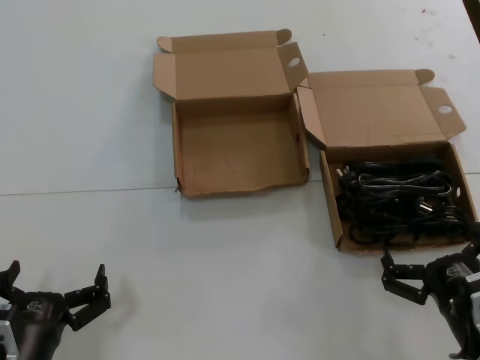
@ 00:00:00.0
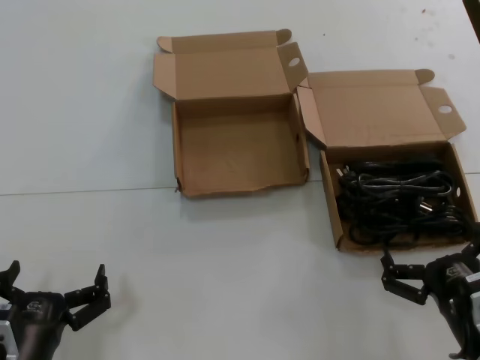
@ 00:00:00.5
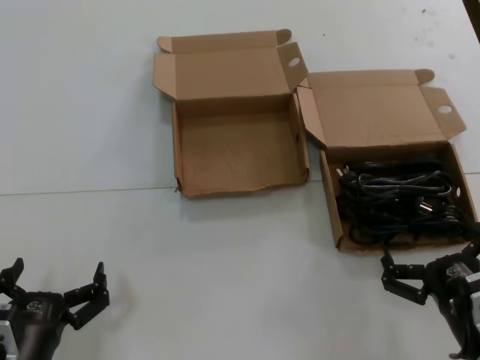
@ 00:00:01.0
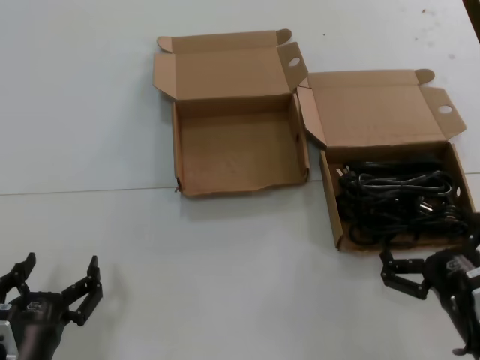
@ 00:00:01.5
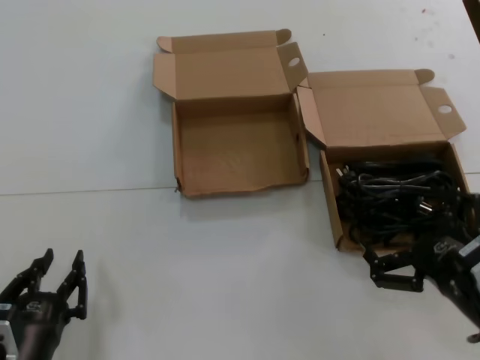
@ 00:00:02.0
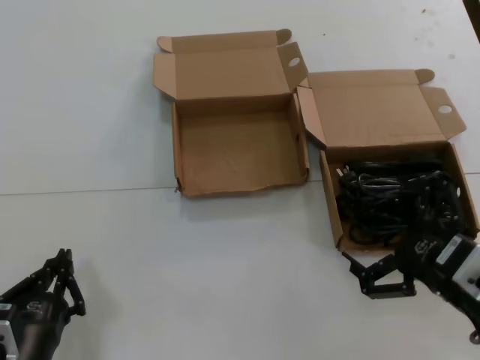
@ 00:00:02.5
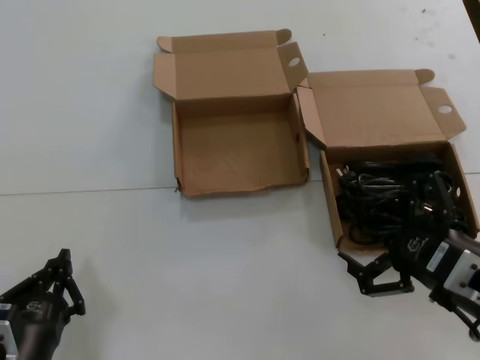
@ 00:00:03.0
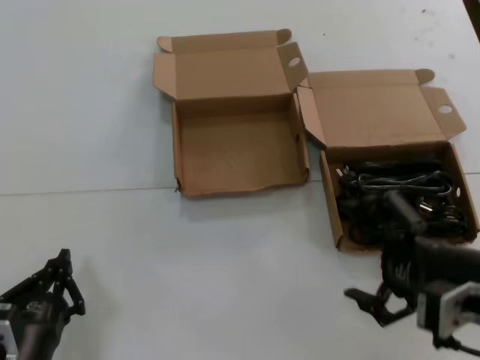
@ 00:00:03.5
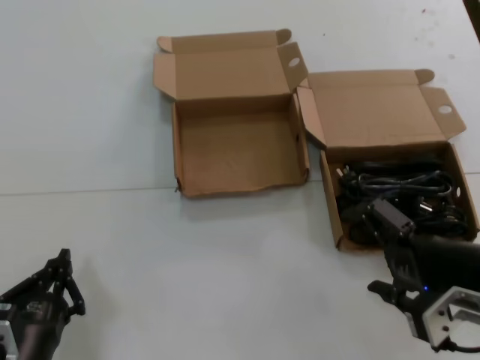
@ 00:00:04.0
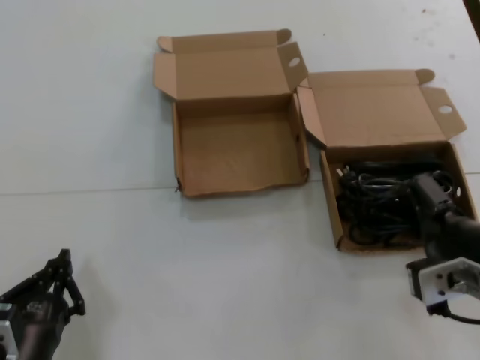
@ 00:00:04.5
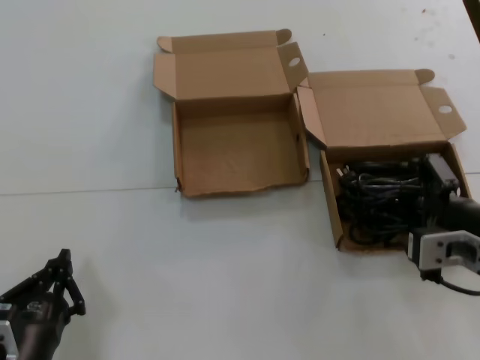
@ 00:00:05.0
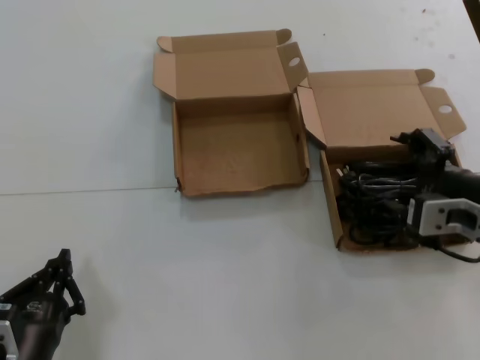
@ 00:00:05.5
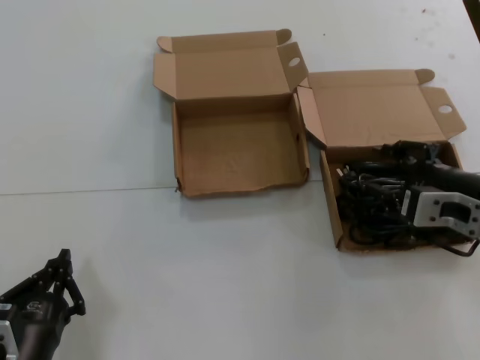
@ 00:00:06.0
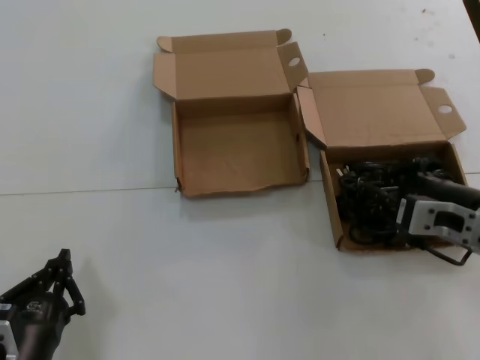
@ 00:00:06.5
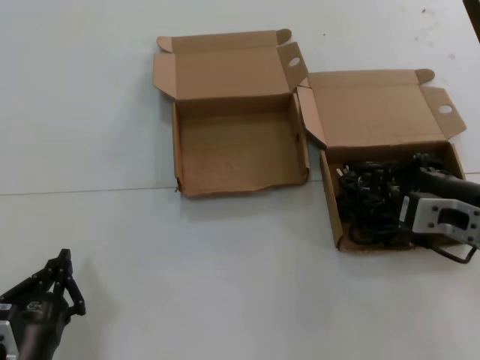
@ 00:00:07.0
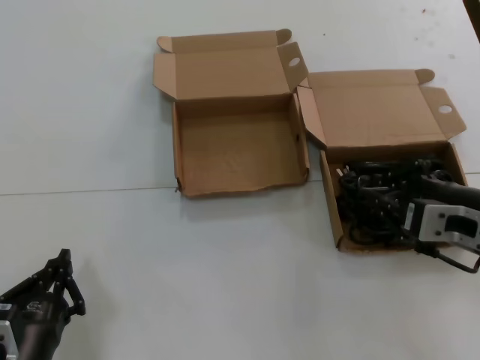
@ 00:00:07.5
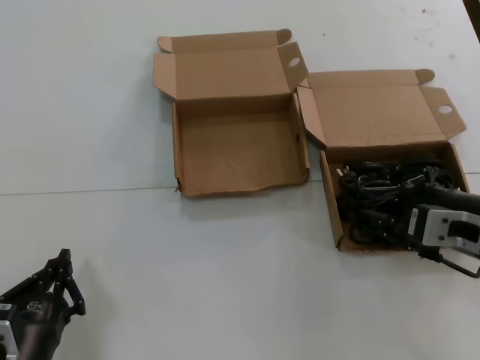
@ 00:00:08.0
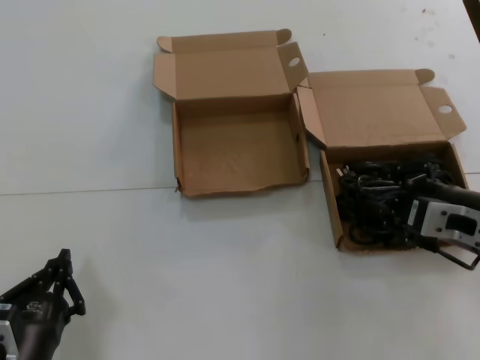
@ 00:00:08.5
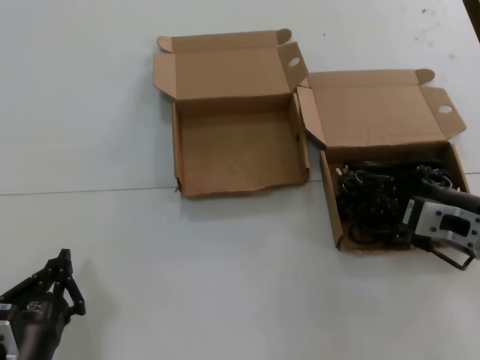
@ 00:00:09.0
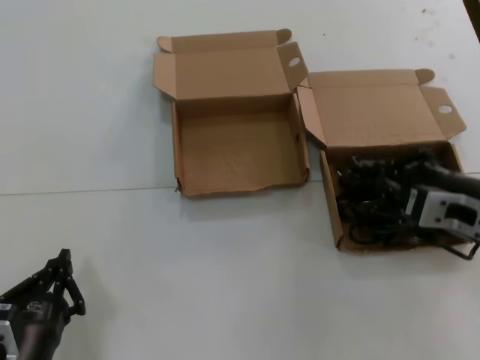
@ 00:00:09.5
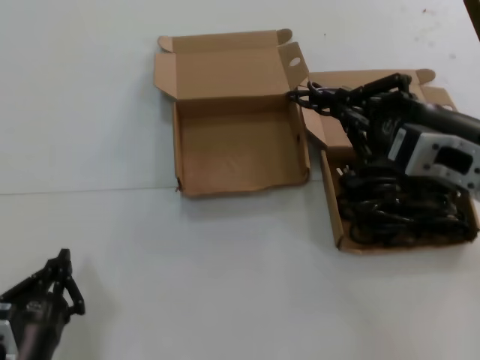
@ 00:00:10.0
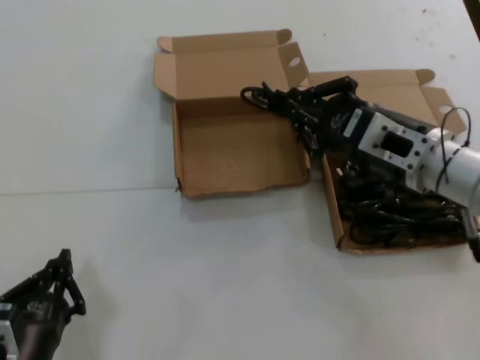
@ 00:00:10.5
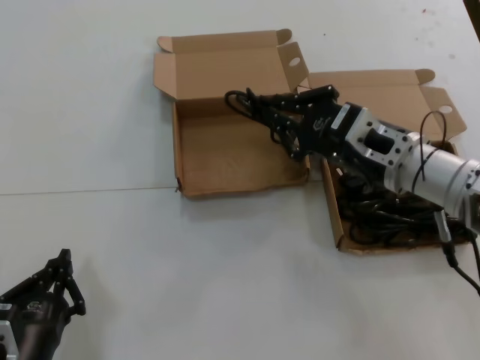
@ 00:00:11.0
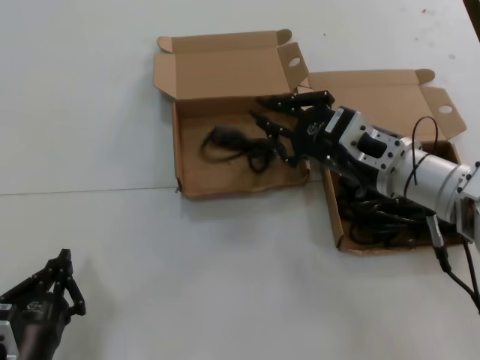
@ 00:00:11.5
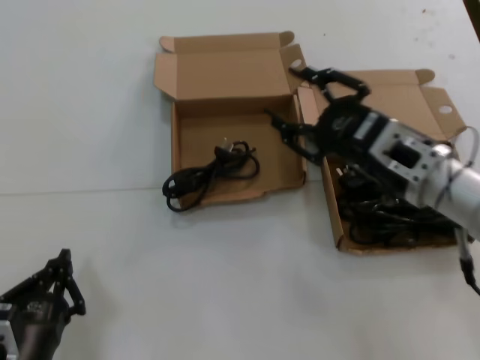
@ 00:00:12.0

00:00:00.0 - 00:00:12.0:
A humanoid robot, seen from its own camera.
Task of the whole recording: take the parts from the box containing them and put them into an empty box.
Step, 00:00:00.0 - 00:00:08.5: Grasp the data cable.
Step, 00:00:09.5 - 00:00:11.5: Place the data cable in the another box.
00:00:00.0 - 00:00:02.0: The right hand goes about 10 cm upward.
00:00:02.0 - 00:00:04.0: The right hand travels upward by approximately 5 cm.
00:00:04.0 - 00:00:06.0: The right hand goes about 5 cm forward.
00:00:06.0 - 00:00:08.0: The hands move only a little.
00:00:08.0 - 00:00:10.0: The right hand moves upward, roughly 5 cm.
00:00:10.0 - 00:00:12.0: The right hand is displaced forward and downward by about 10 cm.

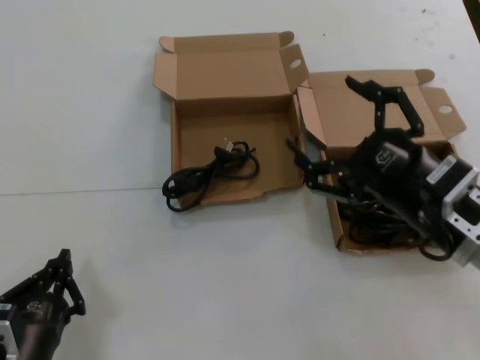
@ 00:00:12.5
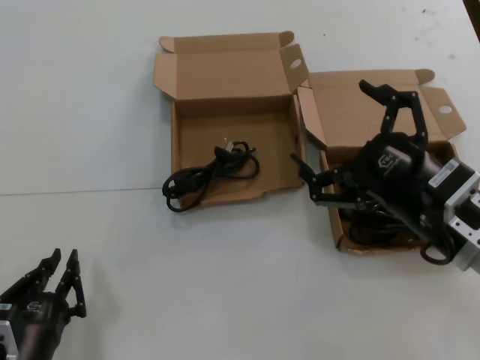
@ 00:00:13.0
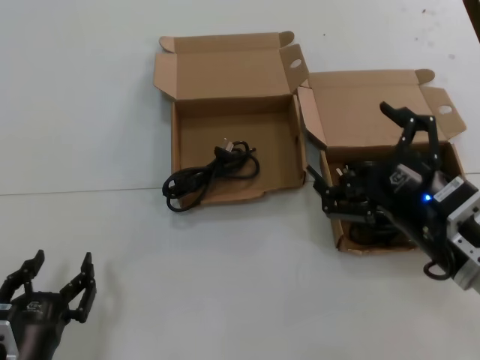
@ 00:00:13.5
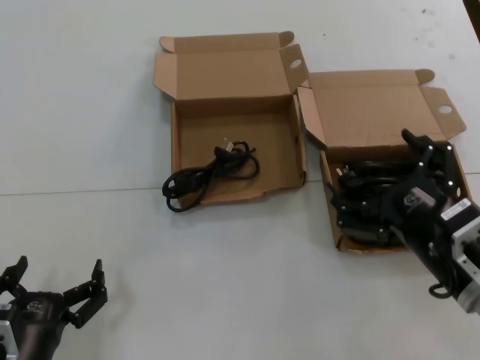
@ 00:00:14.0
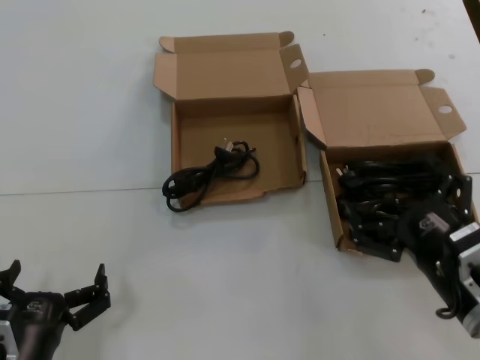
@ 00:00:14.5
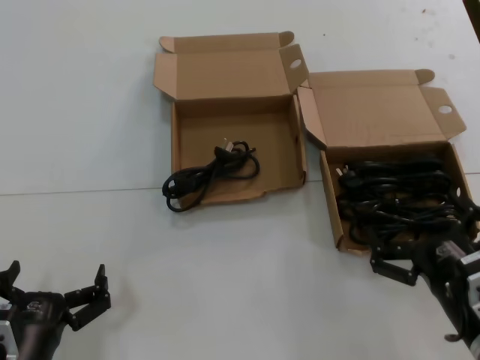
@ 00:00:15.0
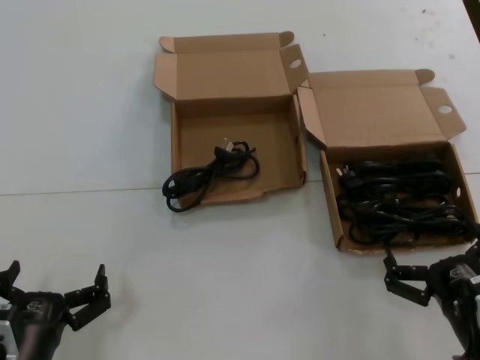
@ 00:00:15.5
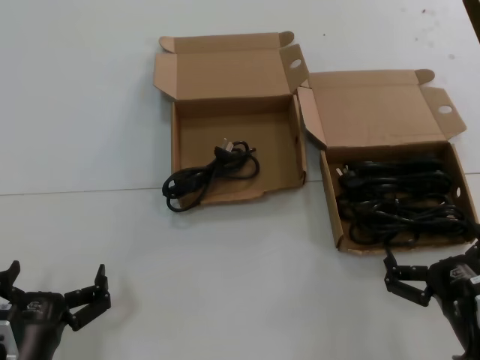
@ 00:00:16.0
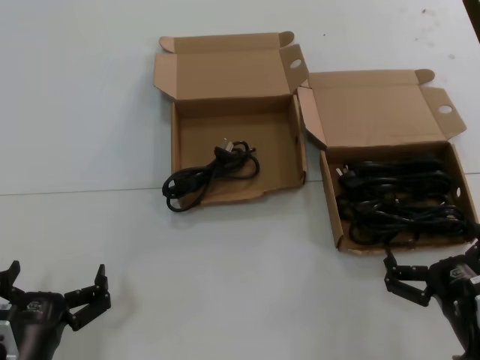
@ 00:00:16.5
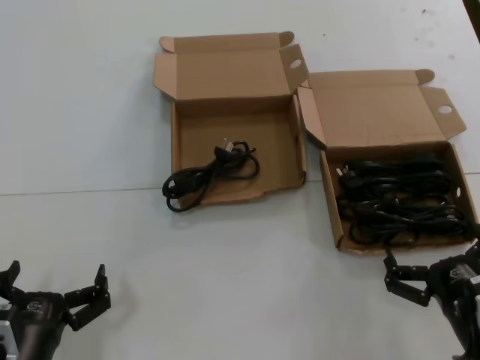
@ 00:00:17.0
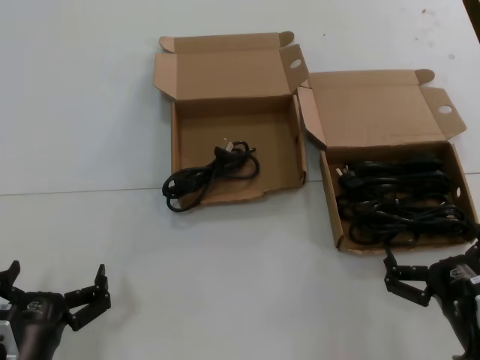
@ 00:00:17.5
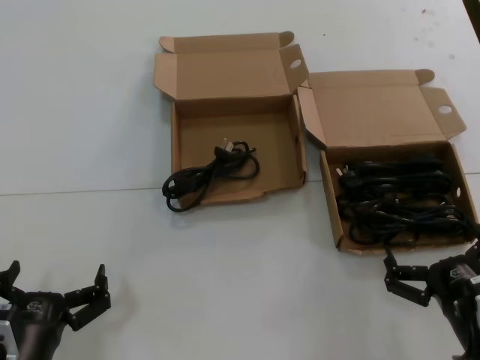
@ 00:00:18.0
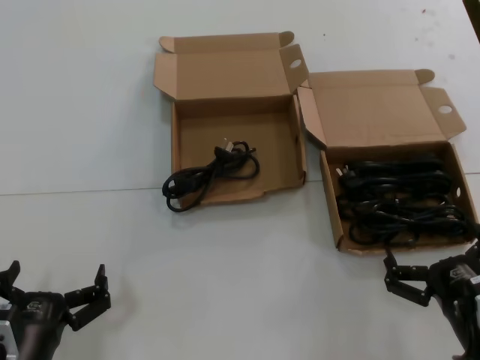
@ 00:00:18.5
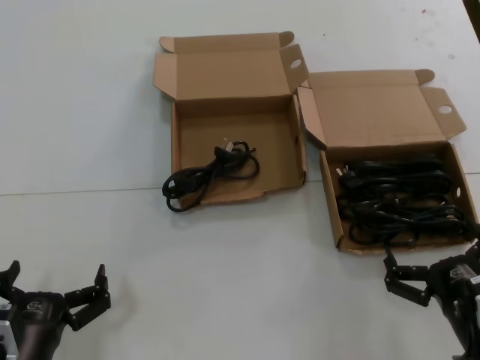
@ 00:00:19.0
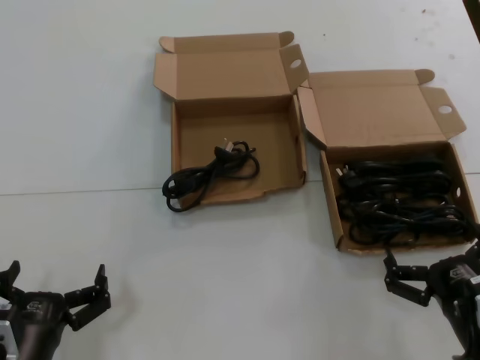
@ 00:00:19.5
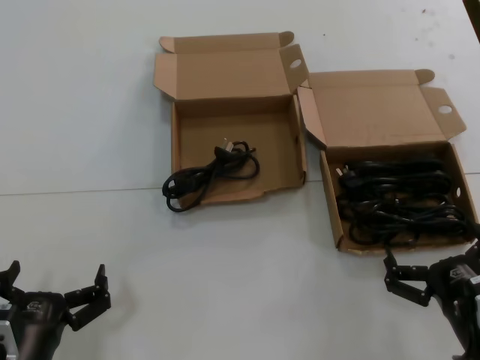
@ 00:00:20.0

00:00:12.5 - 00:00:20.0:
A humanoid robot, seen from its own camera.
Task of the whole recording: take the parts from the box containing them and put them into an empty box.
00:00:12.5 - 00:00:14.5: The right hand goes about 10 cm downward.
00:00:14.5 - 00:00:16.5: The right hand goes about 5 cm downward.
00:00:16.5 - 00:00:20.0: Both hands stay put.
